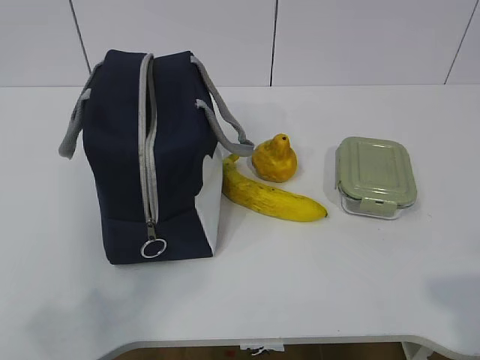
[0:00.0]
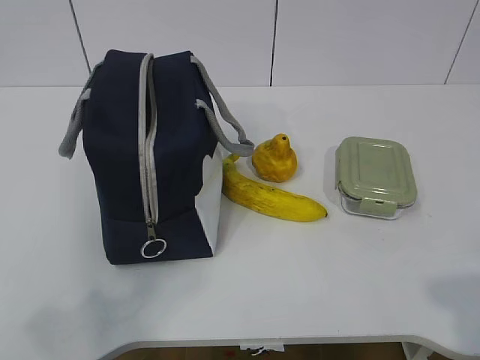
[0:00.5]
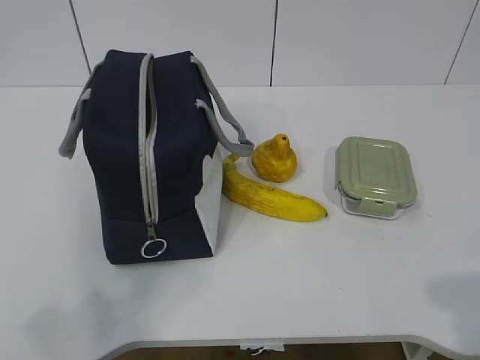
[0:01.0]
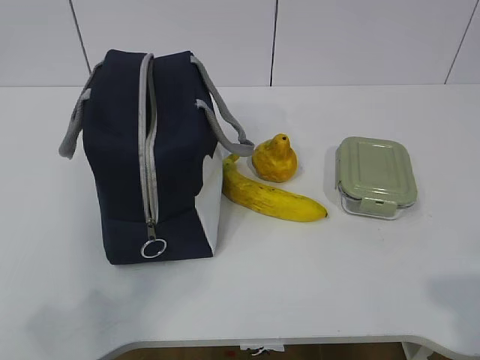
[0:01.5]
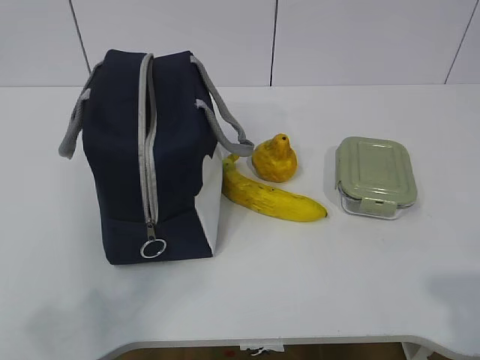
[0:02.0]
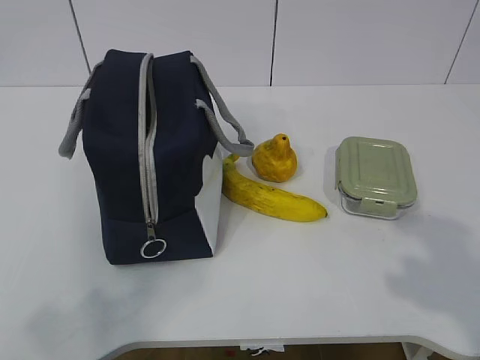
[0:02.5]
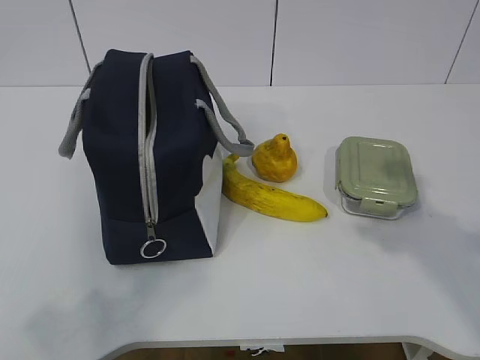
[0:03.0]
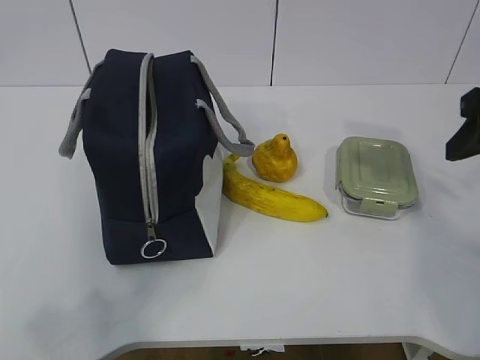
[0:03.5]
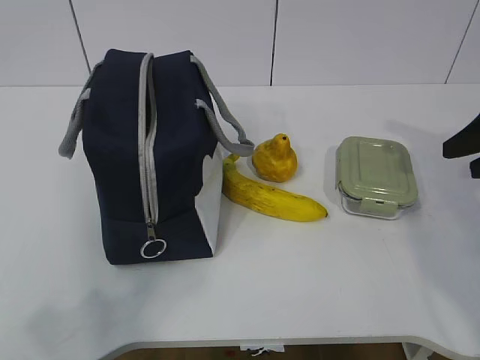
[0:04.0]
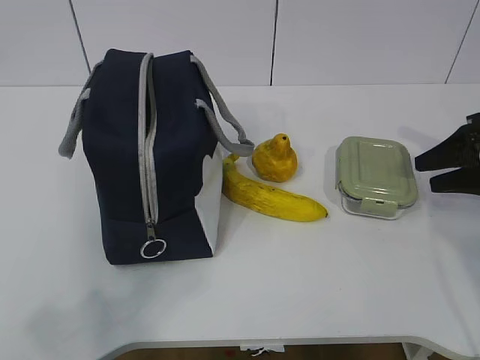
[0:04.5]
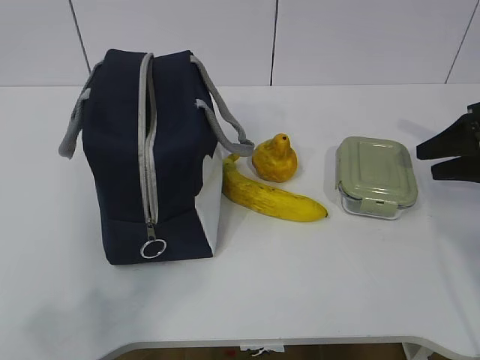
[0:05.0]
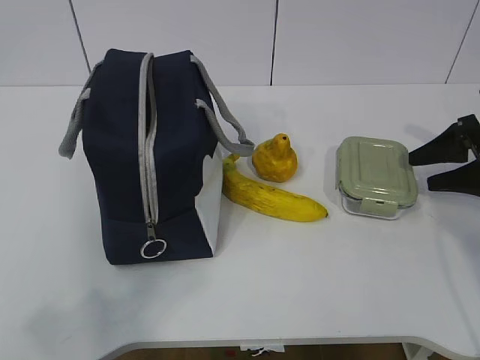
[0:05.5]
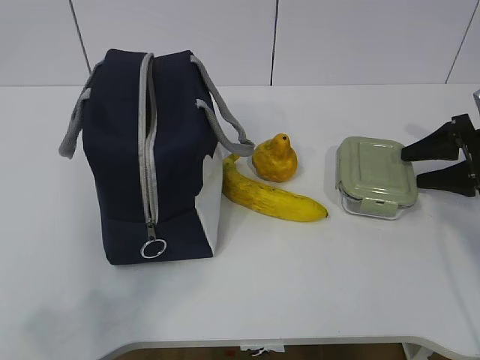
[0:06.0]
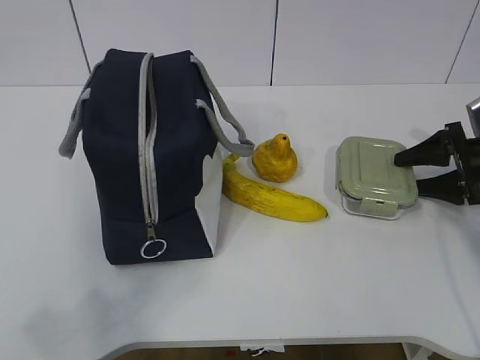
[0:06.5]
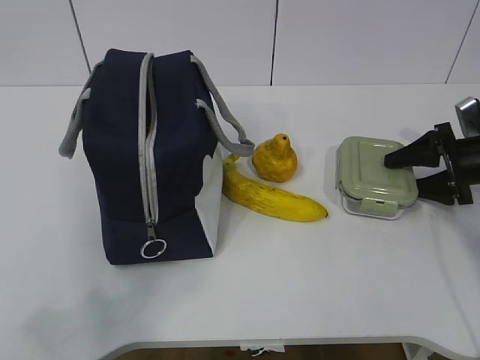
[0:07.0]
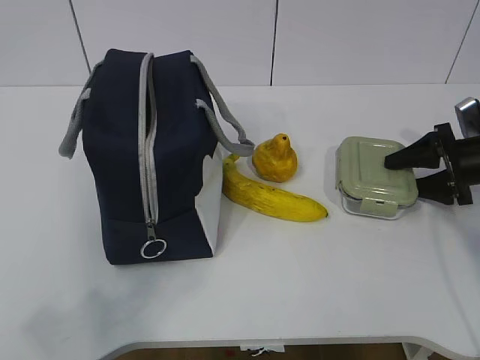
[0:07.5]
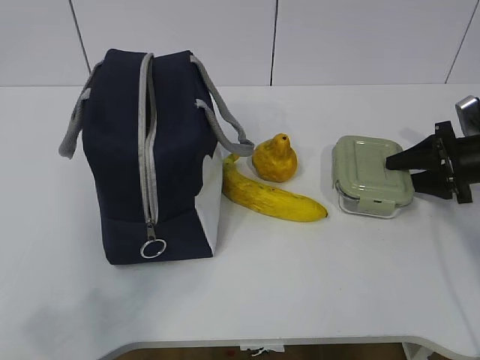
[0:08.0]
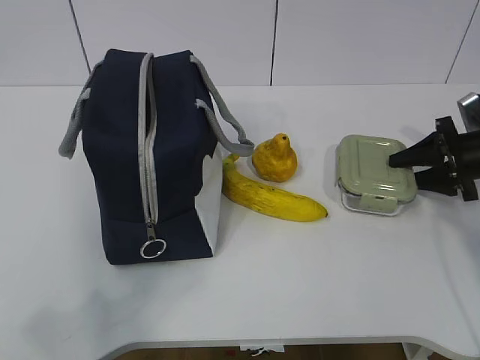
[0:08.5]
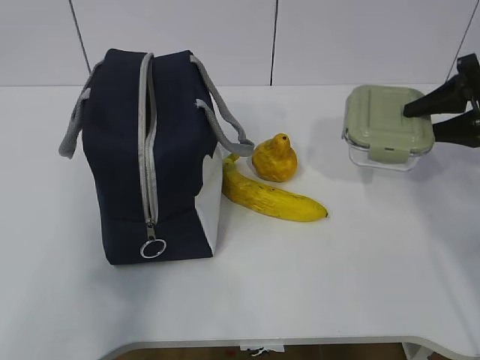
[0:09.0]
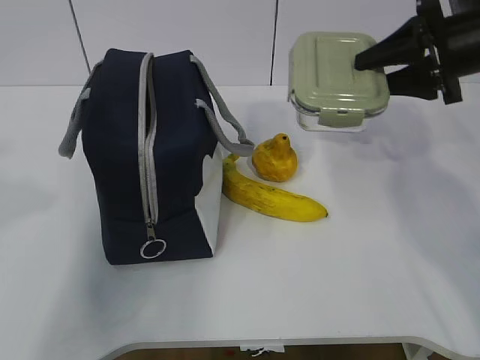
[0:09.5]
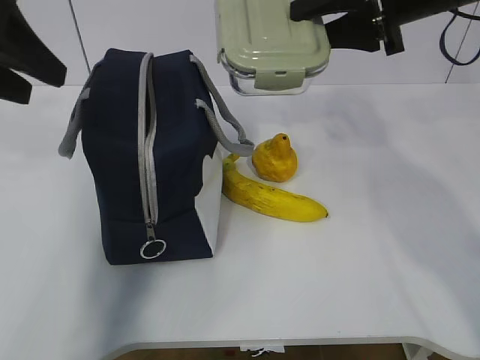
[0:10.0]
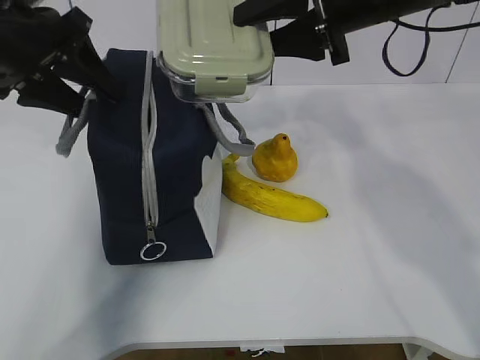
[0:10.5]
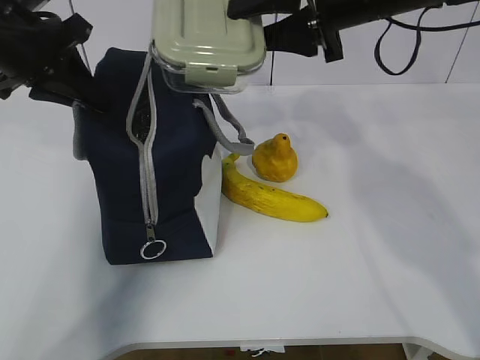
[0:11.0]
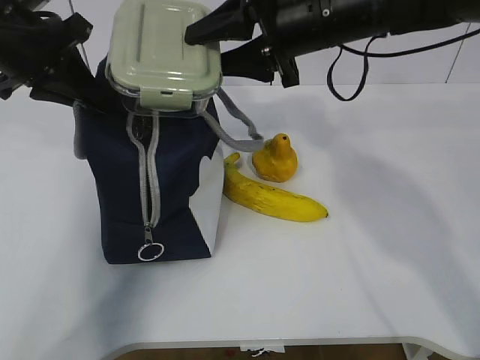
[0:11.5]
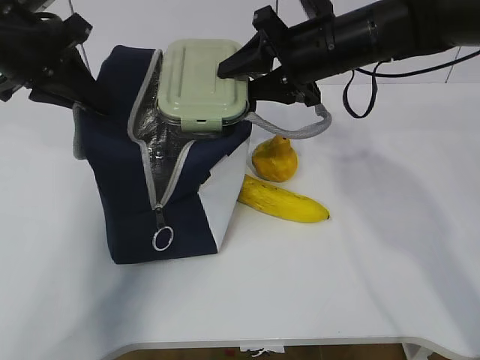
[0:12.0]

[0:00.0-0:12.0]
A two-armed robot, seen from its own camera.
Step, 0:00.0 to 0:07.0: Grab the lunch box with your right hand.
Step, 0:07.5 to 0:09.0: Grab the lunch bag with your left hand.
Step, 0:09.5 to 0:11.5: Place it into the bag with your right hand.
0:02.0 to 0:04.0: The right gripper heads forward, covering some 30 cm.
0:04.0 to 0:06.0: The right gripper is displaced downward and forward by about 15 cm.
0:06.0 to 0:08.0: The grippers make only small movements.
0:08.0 to 0:10.0: The left gripper travels forward by about 30 cm, and opens. Meanwhile the right gripper is displaced upward and to the left by about 25 cm.
0:10.0 to 0:12.0: The left gripper moves forward and downward, approximately 10 cm, and closes. Meanwhile the right gripper travels downward and to the left by approximately 10 cm.

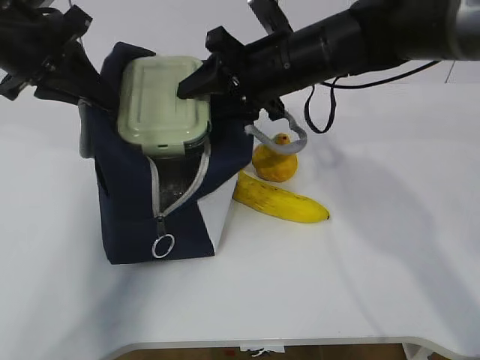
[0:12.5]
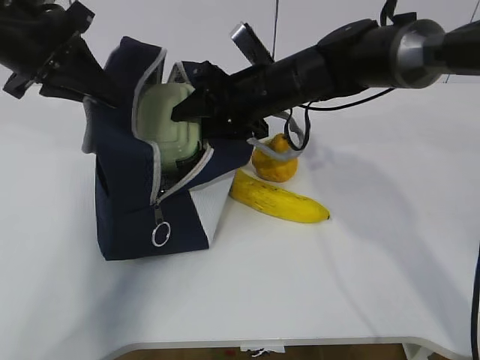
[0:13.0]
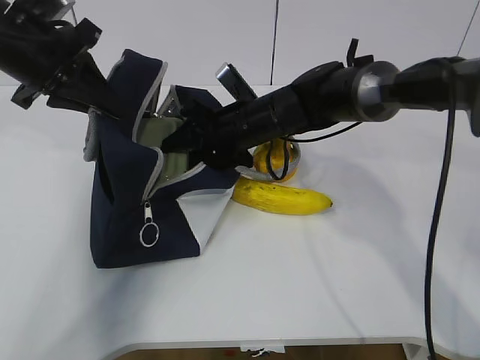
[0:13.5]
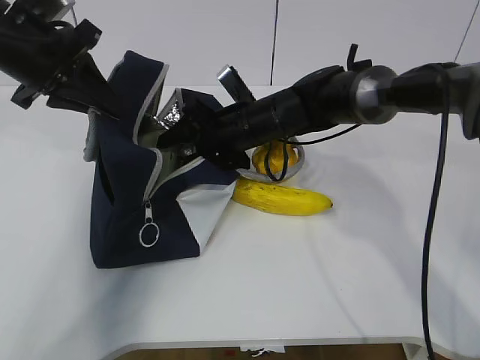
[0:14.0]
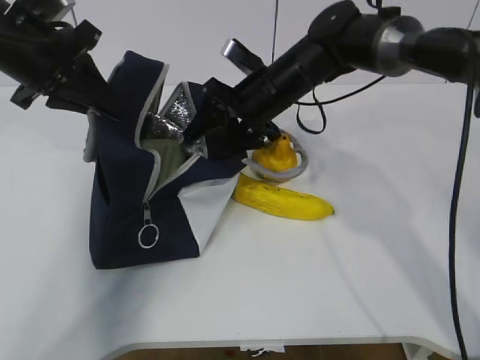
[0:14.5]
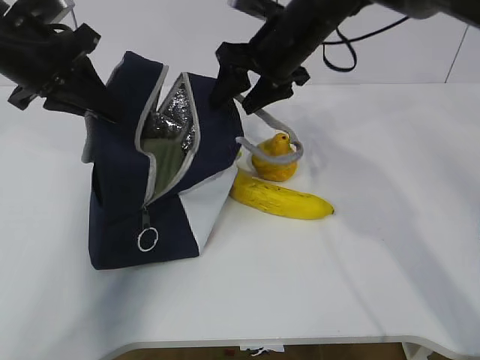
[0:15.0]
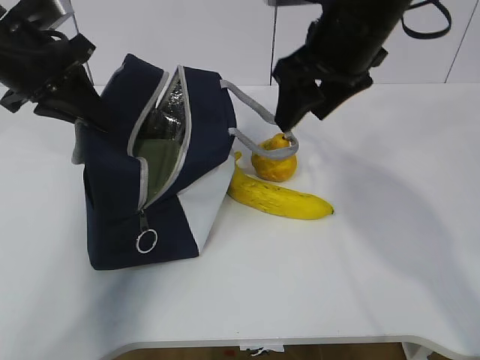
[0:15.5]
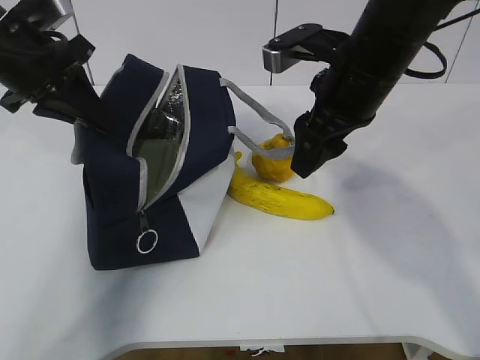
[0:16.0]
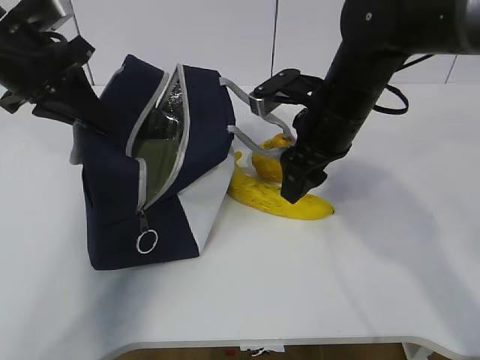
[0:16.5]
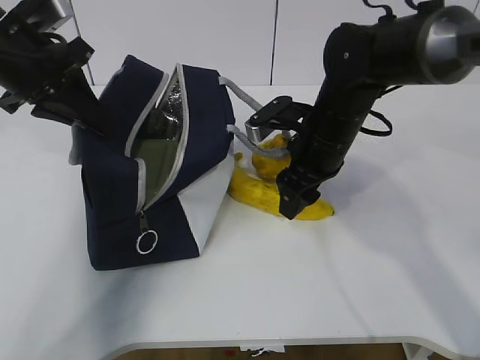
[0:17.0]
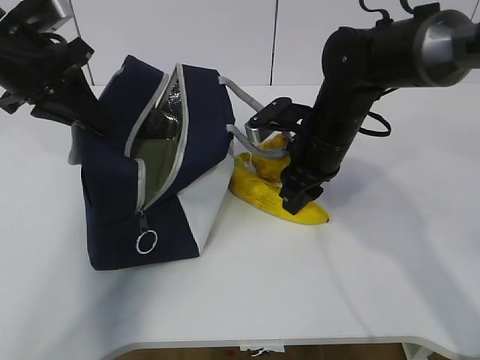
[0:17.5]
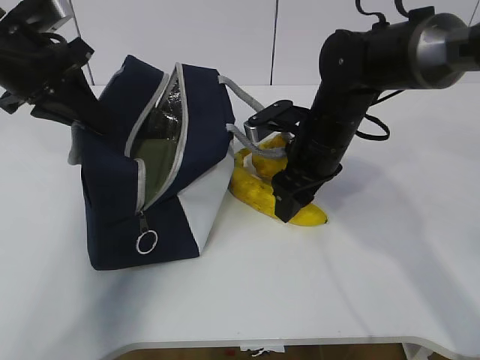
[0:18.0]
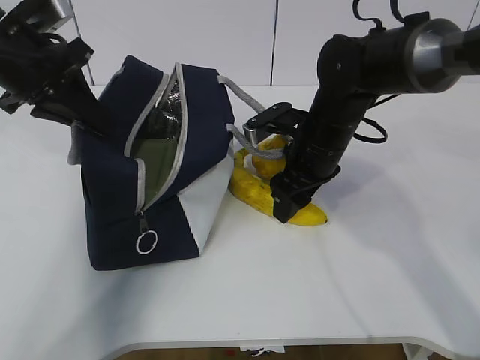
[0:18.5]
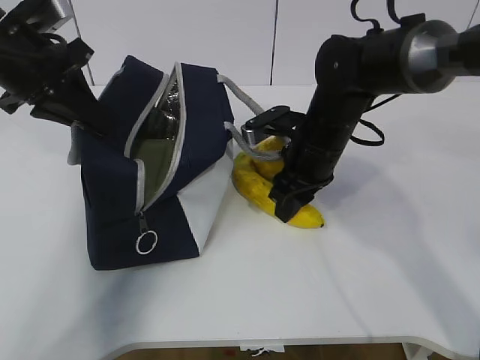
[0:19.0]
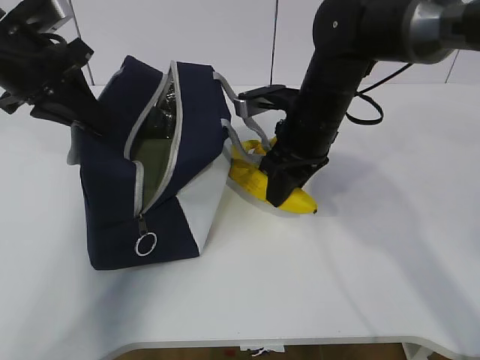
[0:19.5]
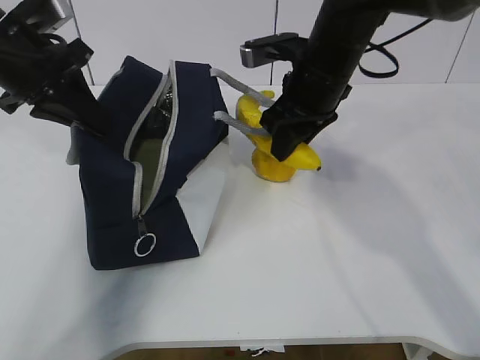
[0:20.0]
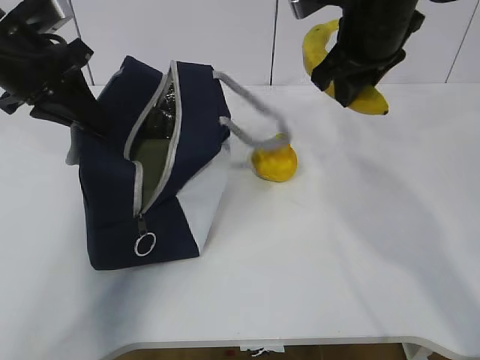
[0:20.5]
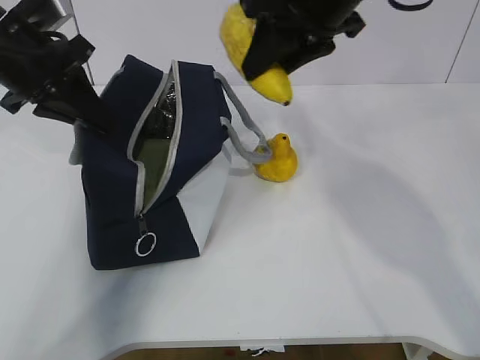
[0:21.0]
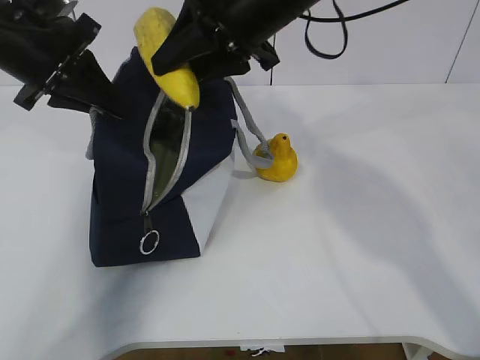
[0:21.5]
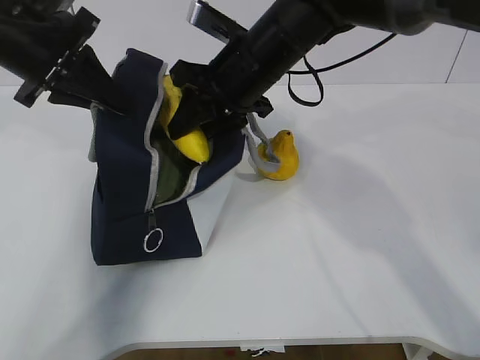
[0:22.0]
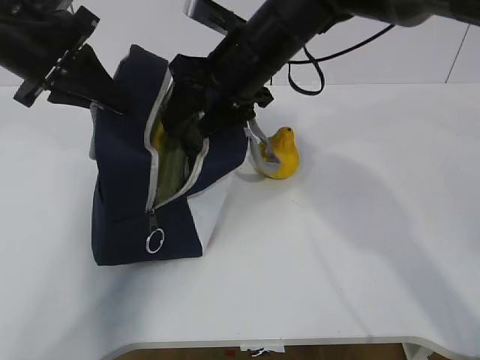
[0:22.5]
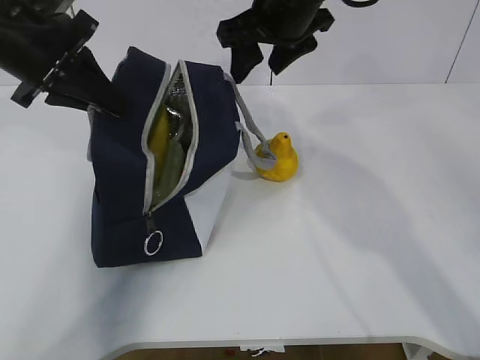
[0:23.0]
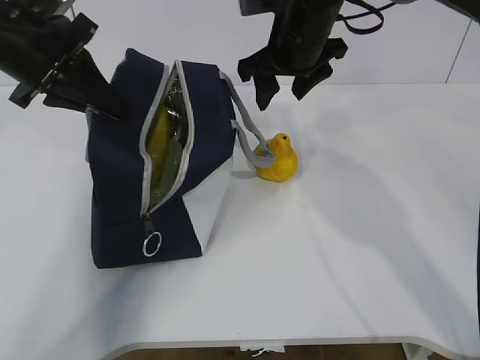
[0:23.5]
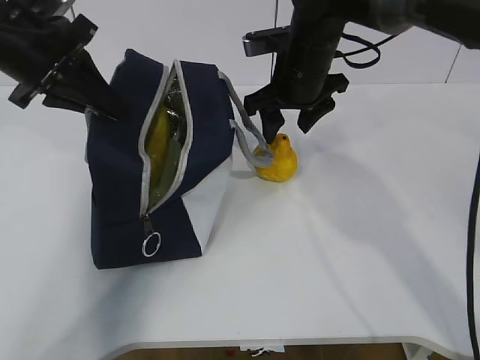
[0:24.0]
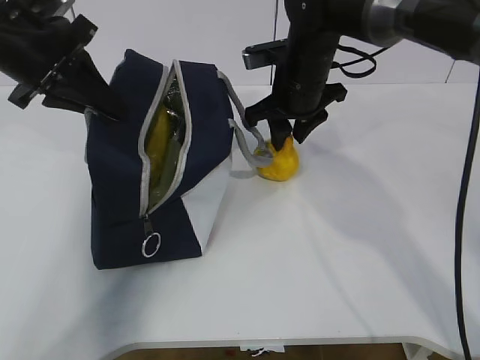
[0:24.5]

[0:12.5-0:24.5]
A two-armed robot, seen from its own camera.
Step, 0:12.5 to 0:14.0: Grab the banana with your right hand.
Step, 0:14.5 to 0:18.5: Place it into the bag with your right hand.
Step, 0:19.0 to 0:20.5: Grab the pear with your right hand.
Step, 0:21.0 to 0:23.0: Place it into the bag with your right hand.
Step, 0:23.5 to 0:24.0: Grab the lunch bag with your right hand.
0:12.5 to 0:14.5: The right gripper moves forward and downward, some 10 cm.
0:14.5 to 0:16.5: The right gripper travels backward by some 10 cm, and travels upward and back again, some 10 cm each way.
0:16.5 to 0:18.5: The right gripper goes about 5 cm downward, and closes and opens again.
0:18.5 to 0:20.5: The right gripper heads upward, covering roughly 15 cm, and closes its fingers.
0:20.5 to 0:22.5: The right gripper moves to the left, roughly 10 cm, and opens up.
0:22.5 to 0:24.5: The right gripper shifts some 10 cm to the right and downward.

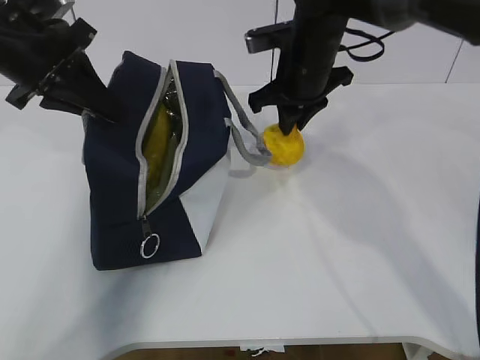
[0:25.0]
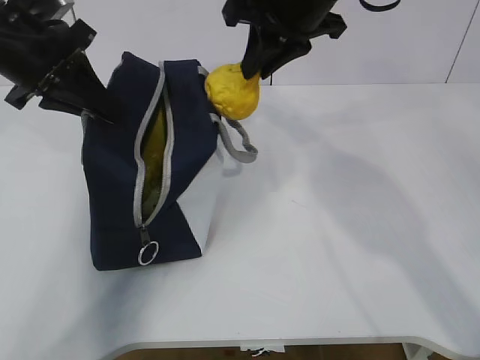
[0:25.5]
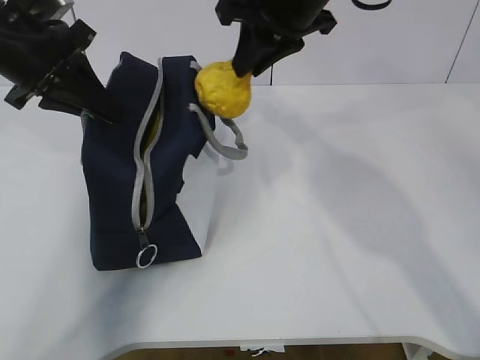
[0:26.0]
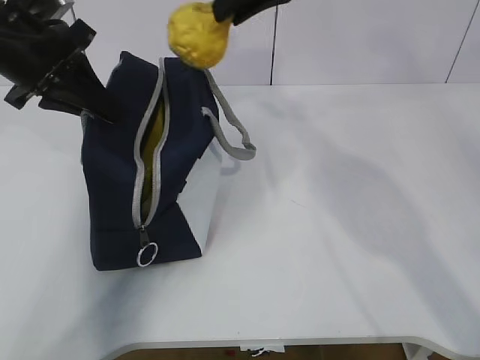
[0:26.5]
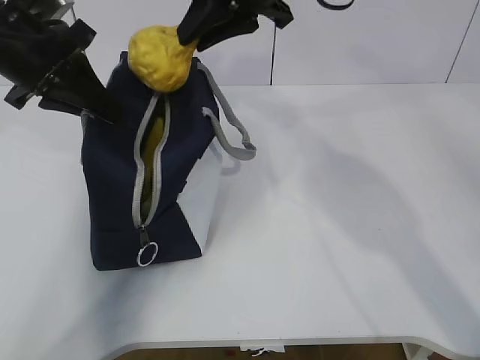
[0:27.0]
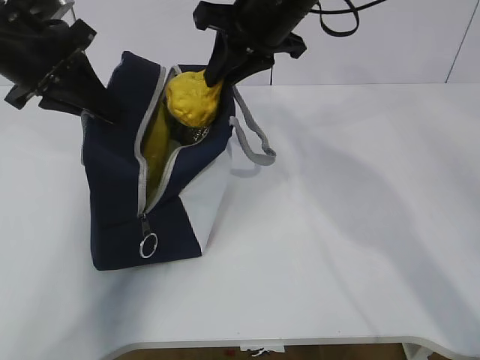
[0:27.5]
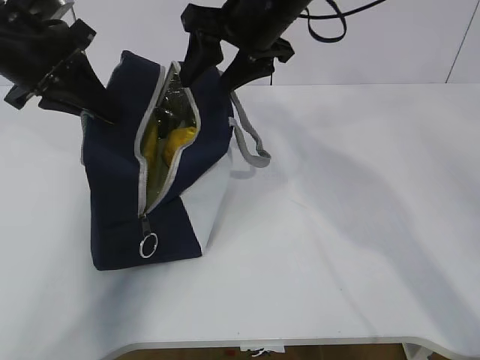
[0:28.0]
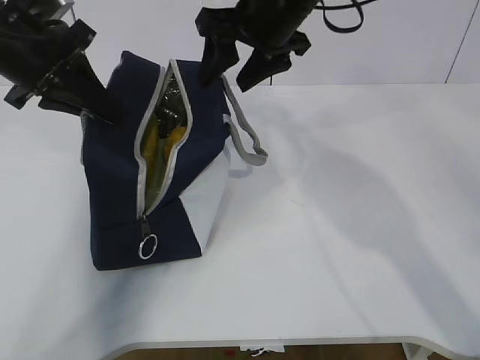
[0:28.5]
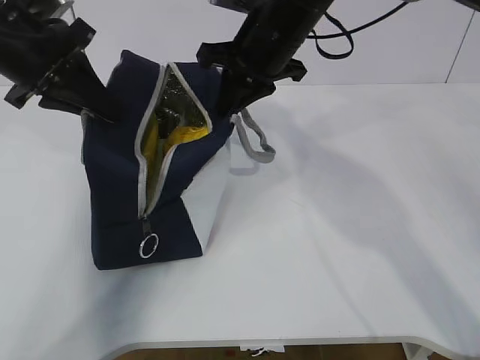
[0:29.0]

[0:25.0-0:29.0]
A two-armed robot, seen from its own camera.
0:25.0 to 0:27.0: The right gripper shifts some 10 cm upward.
0:27.0 to 0:29.0: The right gripper shifts approximately 5 cm downward, and opens and closes again.
